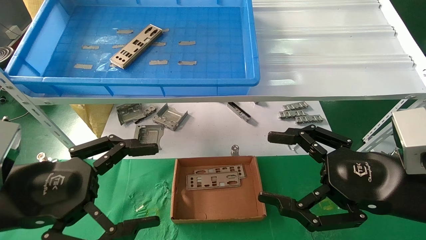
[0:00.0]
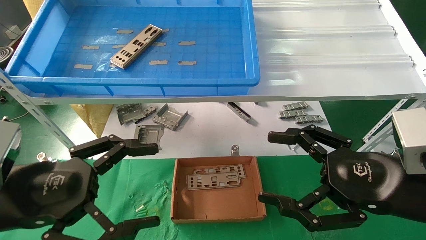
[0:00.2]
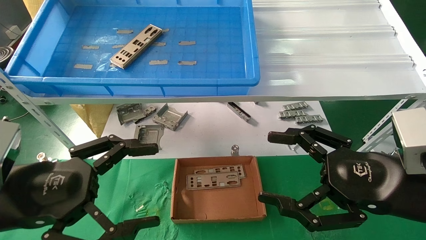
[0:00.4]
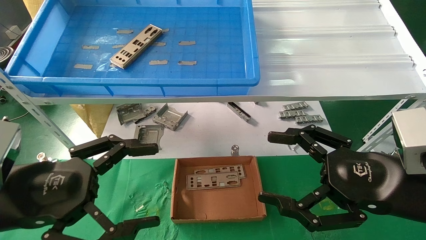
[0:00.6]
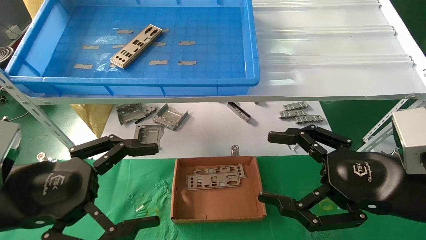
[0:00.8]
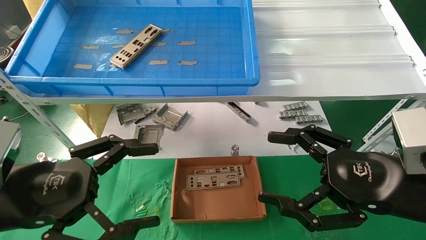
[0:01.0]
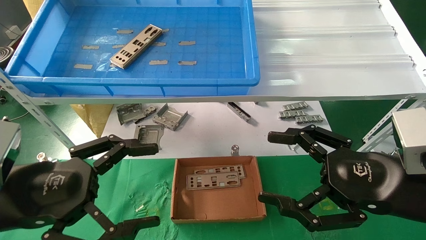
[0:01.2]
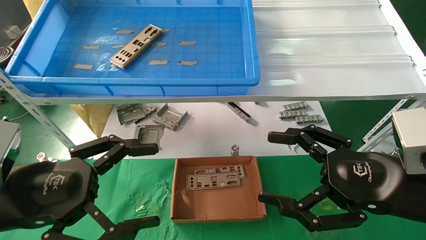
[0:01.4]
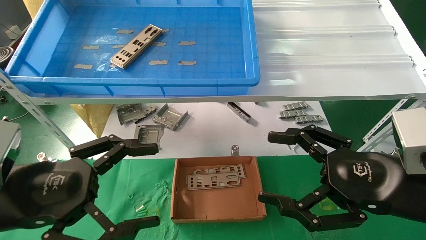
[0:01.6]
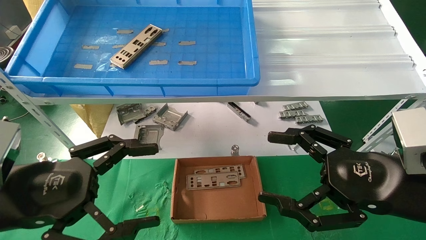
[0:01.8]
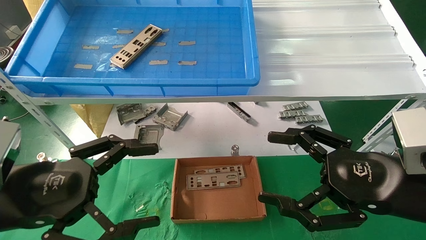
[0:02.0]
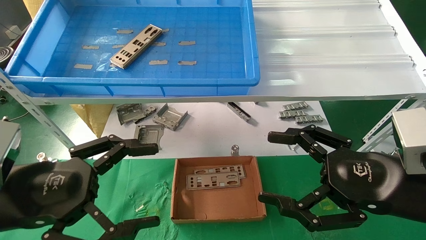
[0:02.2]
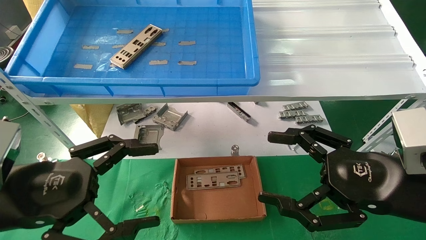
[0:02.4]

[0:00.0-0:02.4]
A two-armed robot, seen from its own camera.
Task of the whole recording: pick up the parts on the tray and put them in the cardboard box.
0:00.0 to 0:02.4: The two grippers keep their place.
